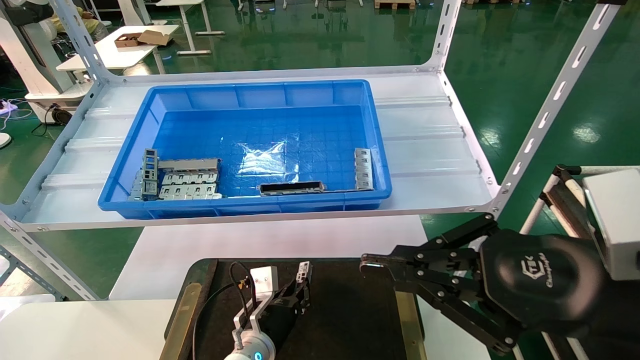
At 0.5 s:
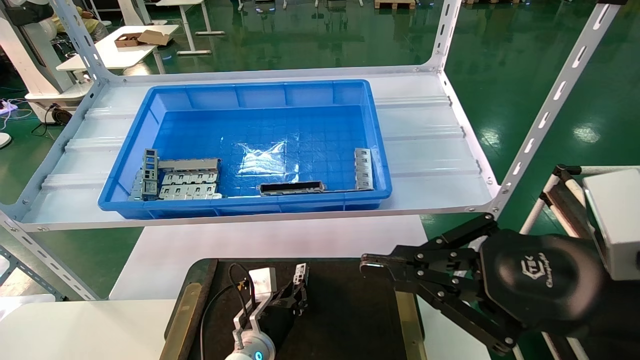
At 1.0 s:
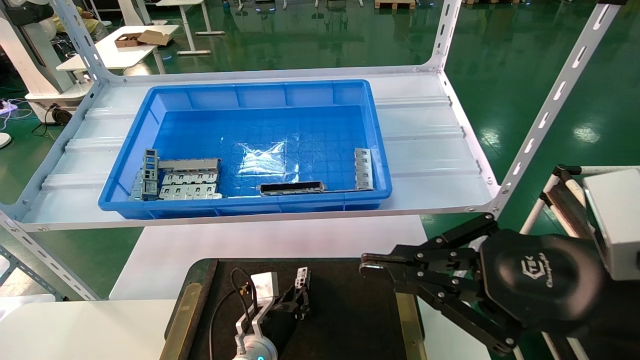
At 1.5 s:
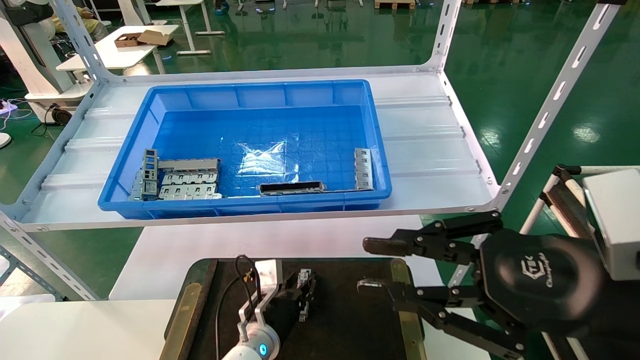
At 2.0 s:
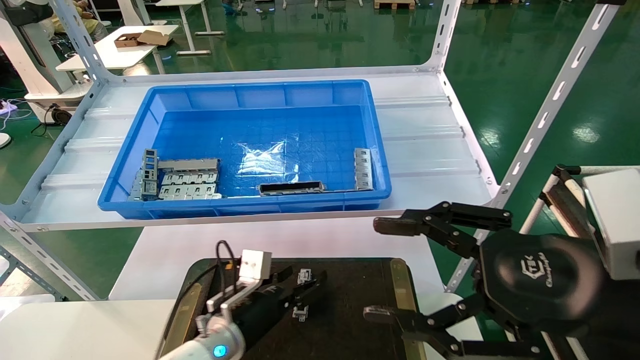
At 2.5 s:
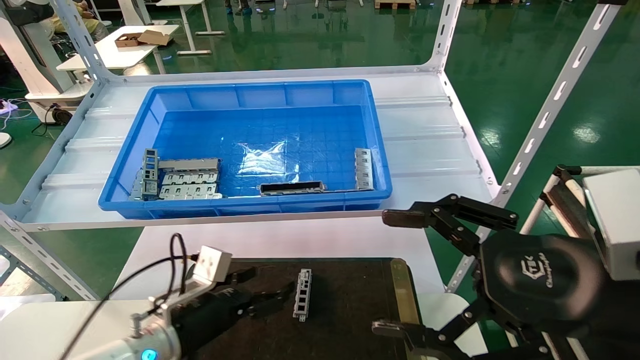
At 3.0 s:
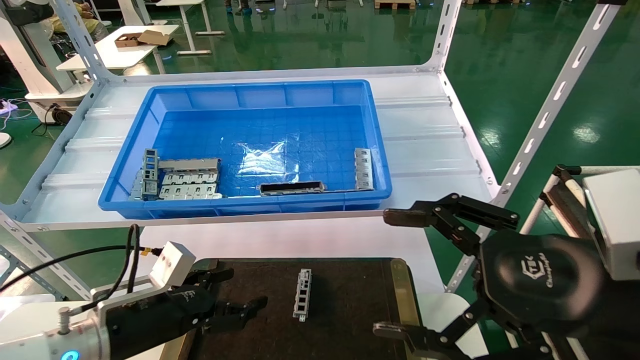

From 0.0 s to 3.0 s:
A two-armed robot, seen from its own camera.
Task of the whole recording: Grasp the part with one hand and place it on the black container.
From 0.0 s to 1.5 s: The grippers stay close to where they were, moving slightly.
From 1.5 s to 3.0 s: The left gripper heads to the left, upward and backward, covering about 25 cm, and opens, while the right gripper opens up.
